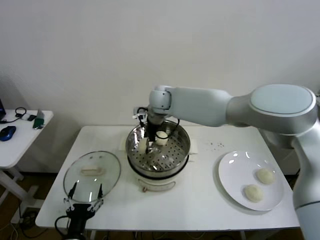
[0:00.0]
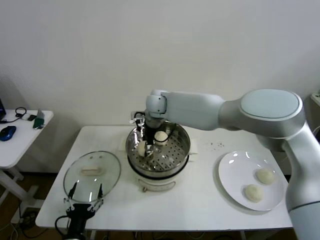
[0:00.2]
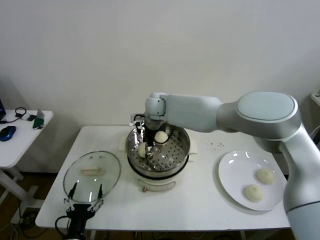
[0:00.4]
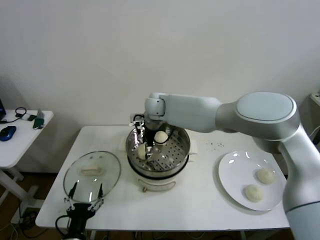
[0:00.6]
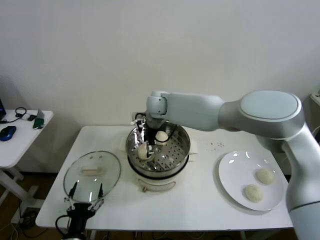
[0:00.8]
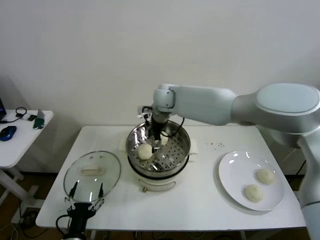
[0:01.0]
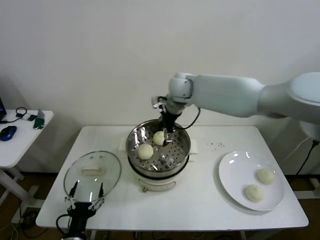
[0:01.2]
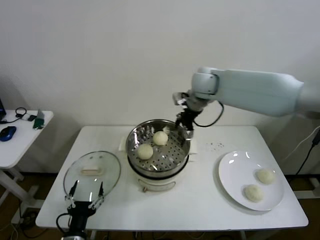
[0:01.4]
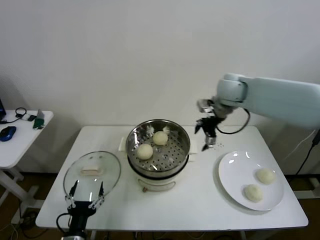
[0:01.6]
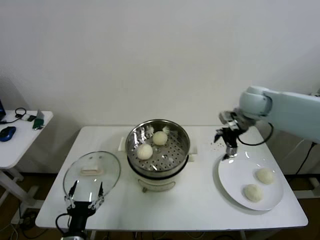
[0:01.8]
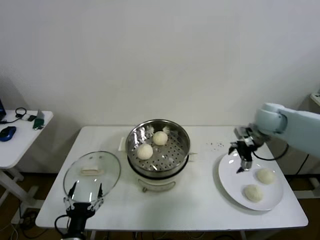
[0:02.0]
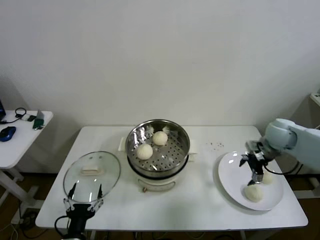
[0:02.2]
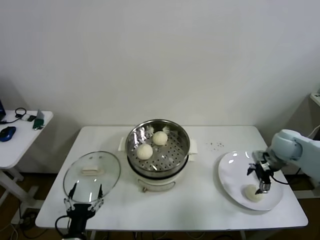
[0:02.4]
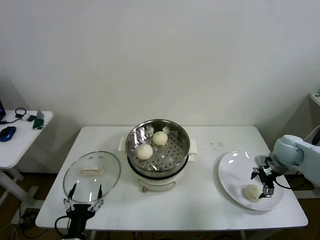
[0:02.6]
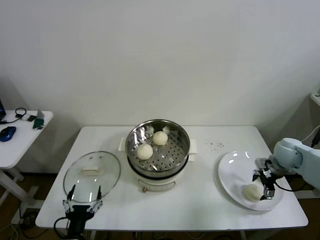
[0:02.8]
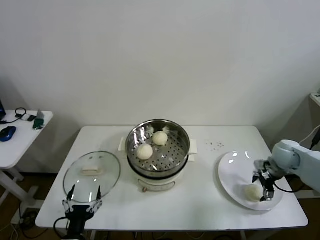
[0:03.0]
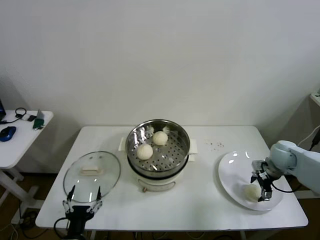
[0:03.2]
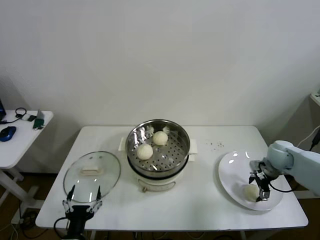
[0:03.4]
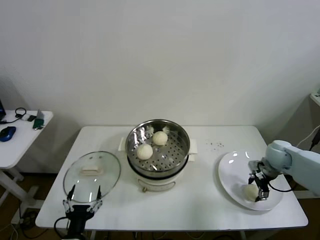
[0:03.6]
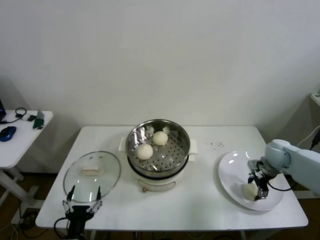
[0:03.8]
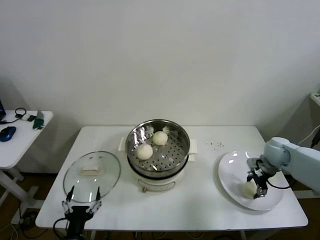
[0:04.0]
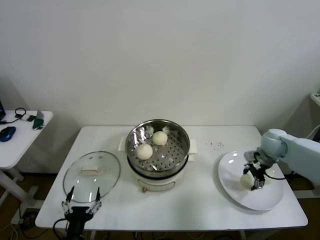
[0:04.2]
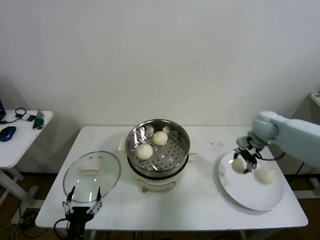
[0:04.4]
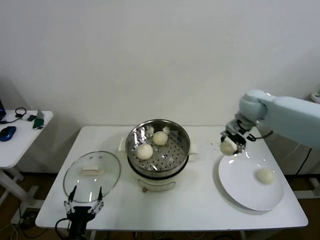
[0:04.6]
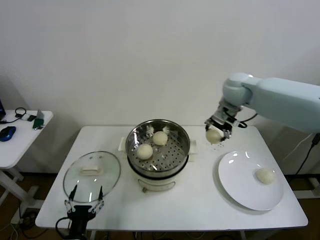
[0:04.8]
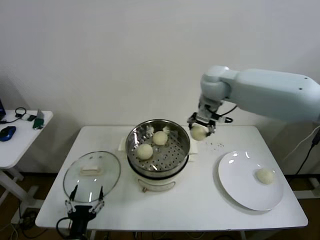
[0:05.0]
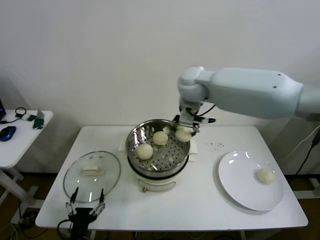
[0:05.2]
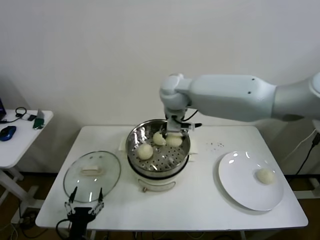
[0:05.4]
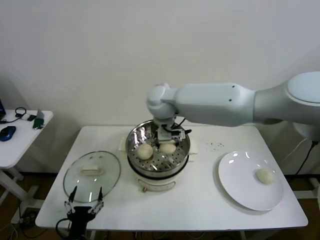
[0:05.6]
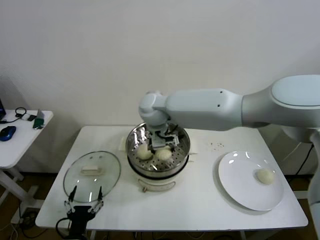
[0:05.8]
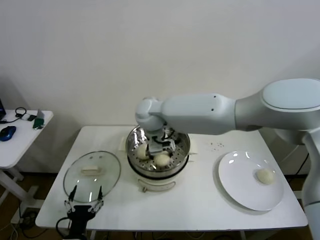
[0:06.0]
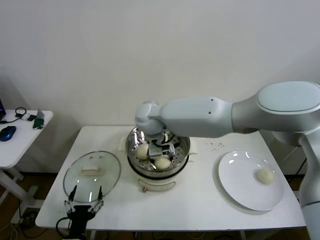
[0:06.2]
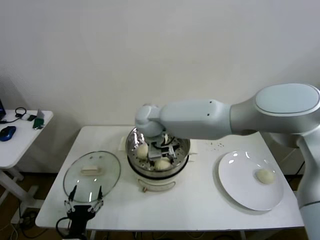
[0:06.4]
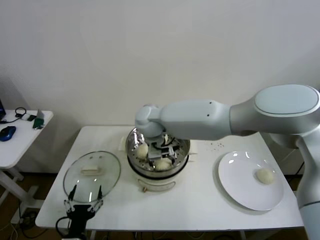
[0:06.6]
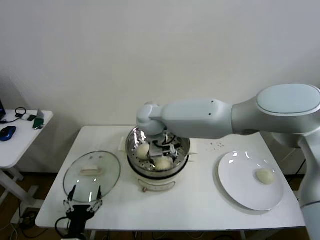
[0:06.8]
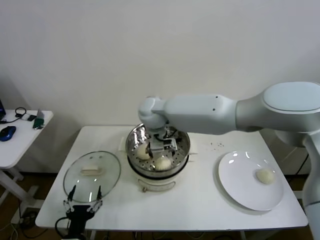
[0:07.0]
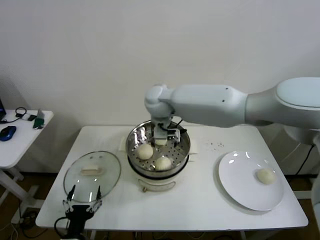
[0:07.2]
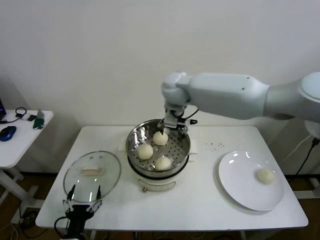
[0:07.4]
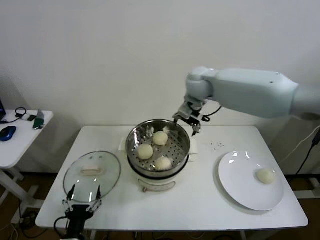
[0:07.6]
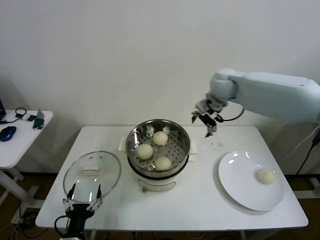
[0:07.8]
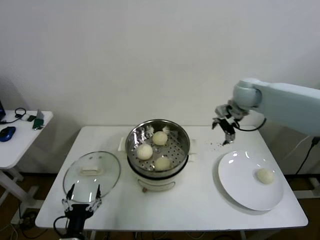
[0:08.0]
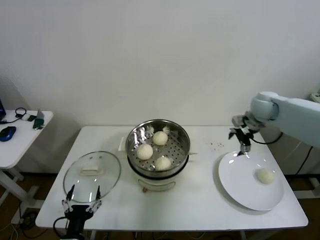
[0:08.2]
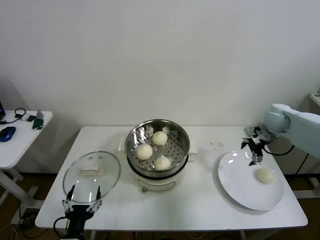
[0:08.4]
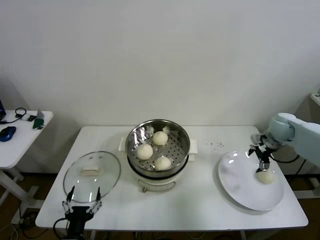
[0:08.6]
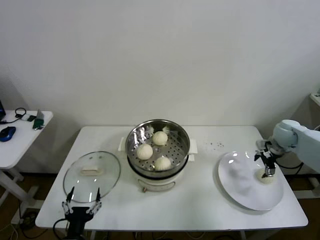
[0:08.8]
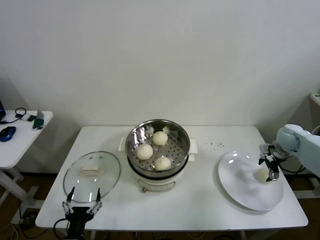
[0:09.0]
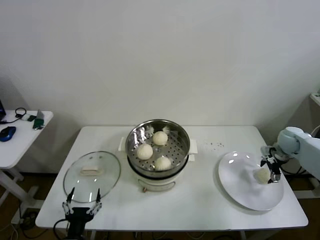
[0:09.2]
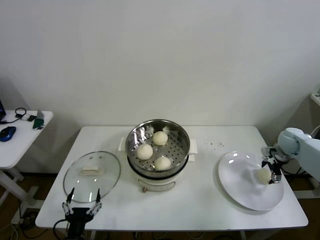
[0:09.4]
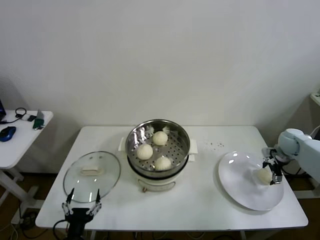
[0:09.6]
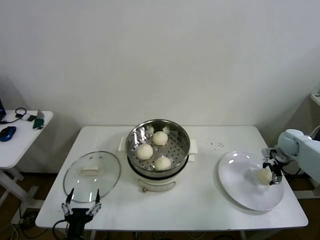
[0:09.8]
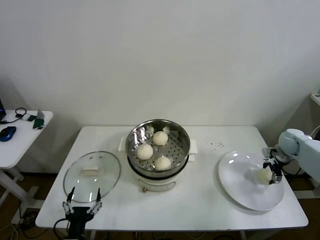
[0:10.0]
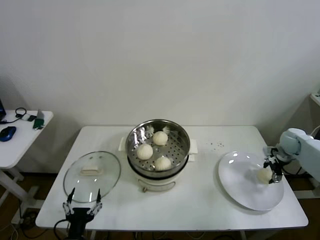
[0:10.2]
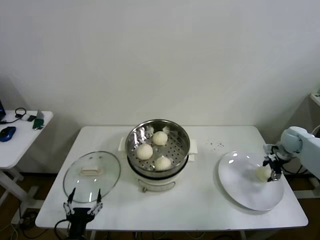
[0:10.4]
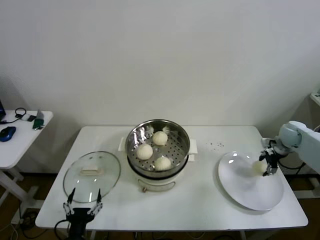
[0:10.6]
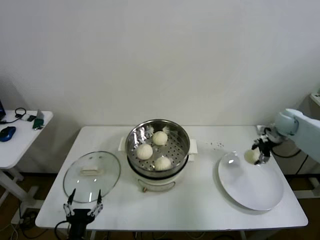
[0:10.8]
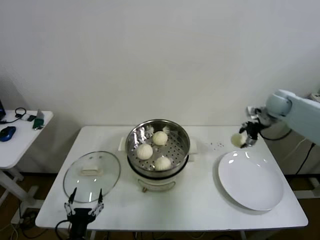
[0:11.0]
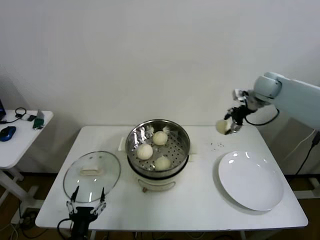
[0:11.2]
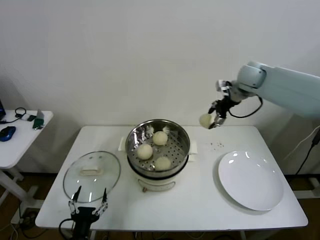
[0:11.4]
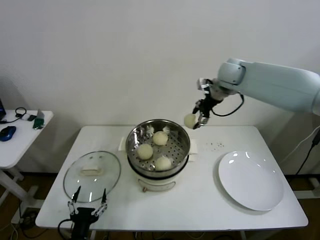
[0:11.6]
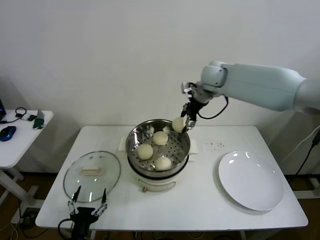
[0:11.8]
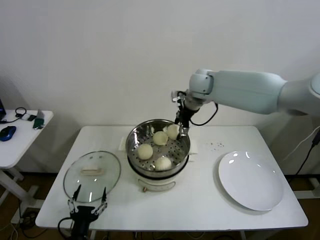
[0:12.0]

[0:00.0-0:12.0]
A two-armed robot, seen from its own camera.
Step, 0:00.6 to 0:03.6: Grasp the baozi in the plate with right gripper.
Step, 0:03.8 to 0:06.4: Place the baozi on the steamer with right gripper.
Step, 0:06.6 to 0:10.0: Grasp the baozi in the plate with right gripper.
0:00.0 to 0:01.6: The right gripper travels to the right by some 25 cm, and opens up.
0:01.6 to 0:03.0: The right gripper shifts approximately 30 cm downward, to the right and backward.
0:03.0 to 0:04.4: The right gripper is displaced upward, to the left and forward by about 15 cm, and closes.
0:04.4 to 0:06.0: The right gripper heads to the left, covering roughly 40 cm.
0:06.0 to 0:07.6: The right gripper travels to the right, forward and upward by some 20 cm, and opens.
0:07.6 to 0:09.0: The right gripper goes some 40 cm to the right and downward.
0:09.0 to 0:10.4: The right gripper closes up.
0:10.4 to 0:12.0: The right gripper travels to the left and upward by roughly 40 cm.

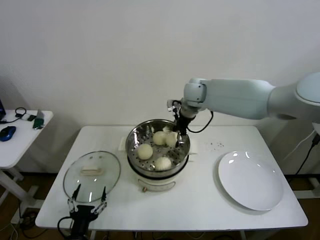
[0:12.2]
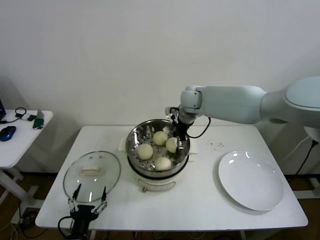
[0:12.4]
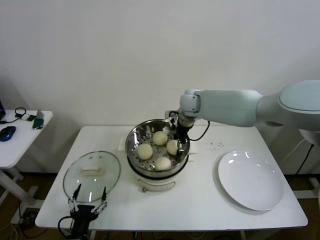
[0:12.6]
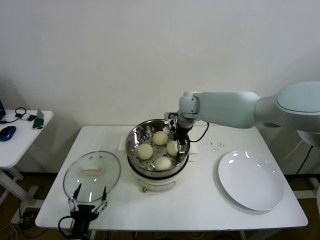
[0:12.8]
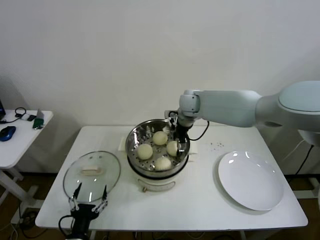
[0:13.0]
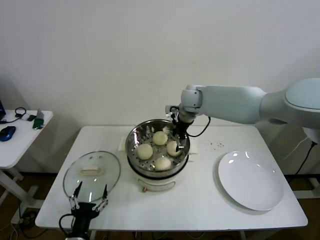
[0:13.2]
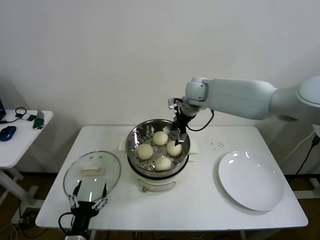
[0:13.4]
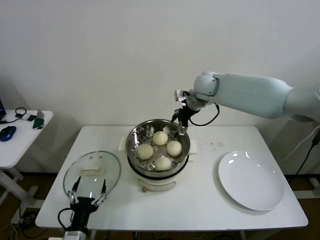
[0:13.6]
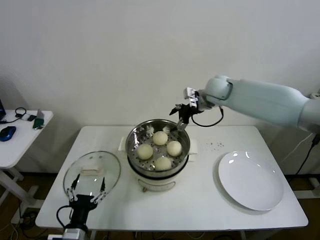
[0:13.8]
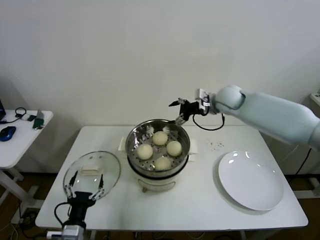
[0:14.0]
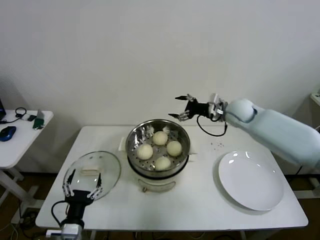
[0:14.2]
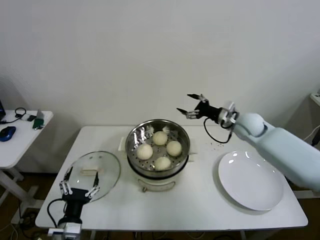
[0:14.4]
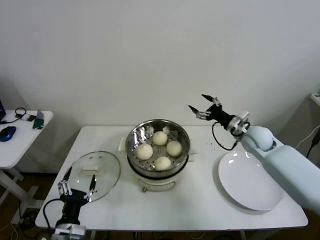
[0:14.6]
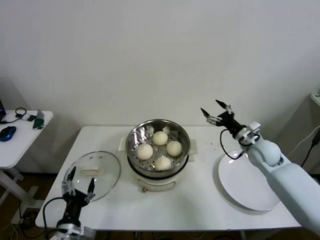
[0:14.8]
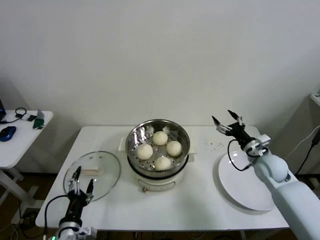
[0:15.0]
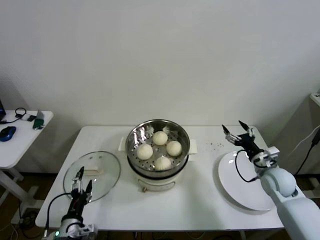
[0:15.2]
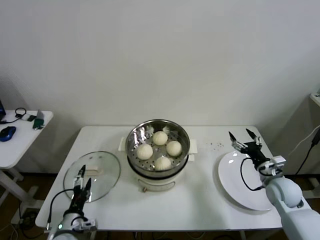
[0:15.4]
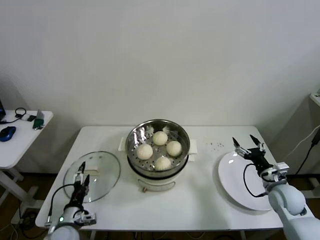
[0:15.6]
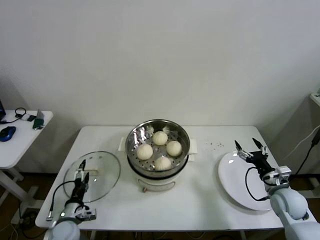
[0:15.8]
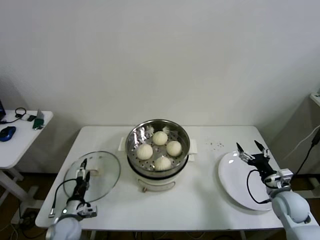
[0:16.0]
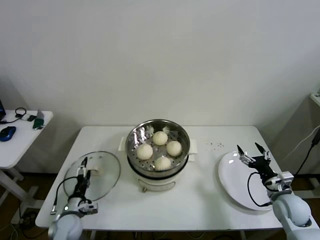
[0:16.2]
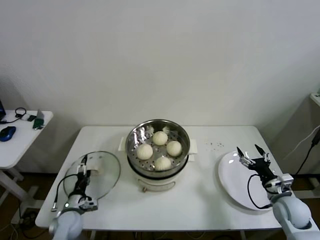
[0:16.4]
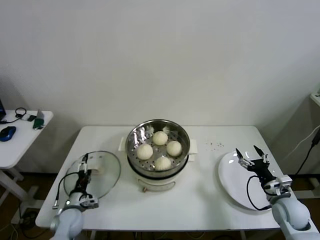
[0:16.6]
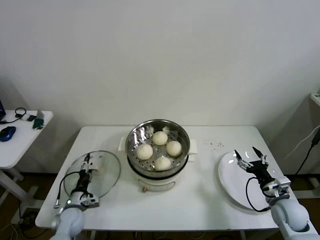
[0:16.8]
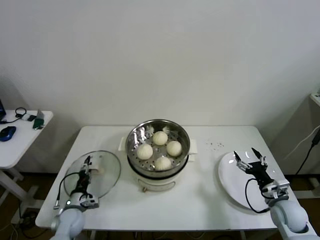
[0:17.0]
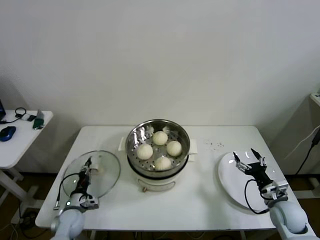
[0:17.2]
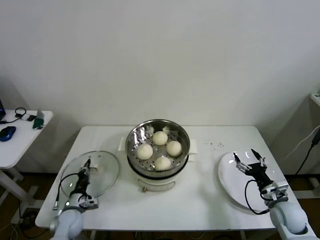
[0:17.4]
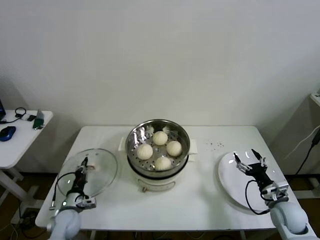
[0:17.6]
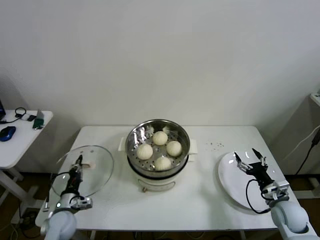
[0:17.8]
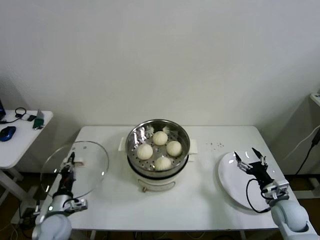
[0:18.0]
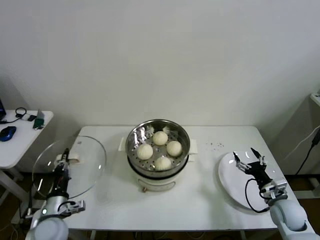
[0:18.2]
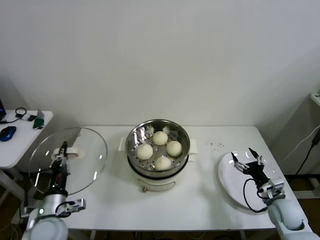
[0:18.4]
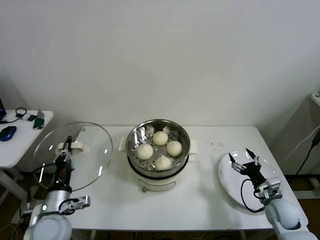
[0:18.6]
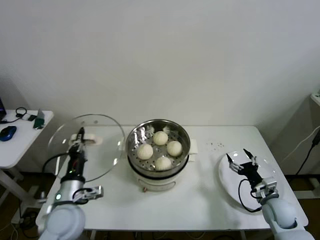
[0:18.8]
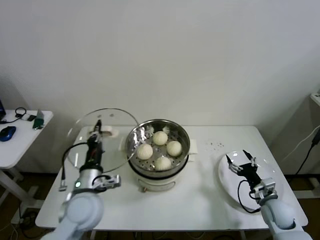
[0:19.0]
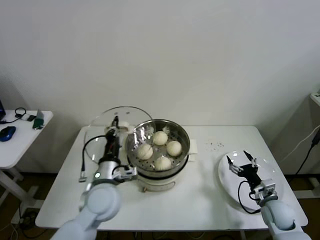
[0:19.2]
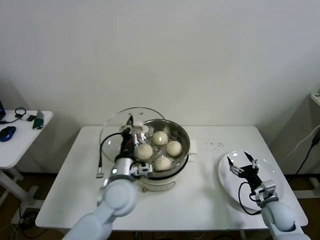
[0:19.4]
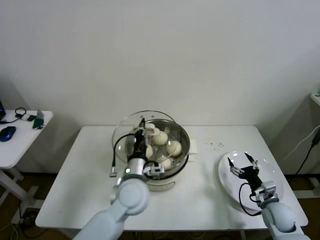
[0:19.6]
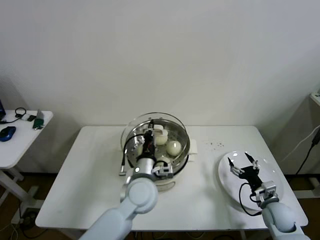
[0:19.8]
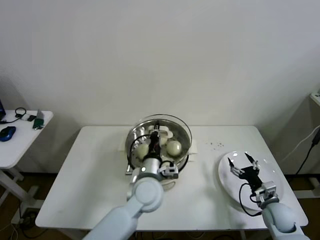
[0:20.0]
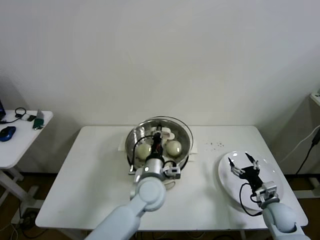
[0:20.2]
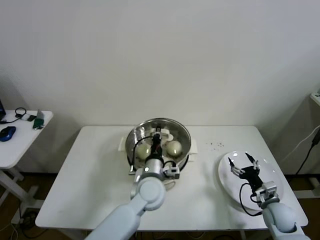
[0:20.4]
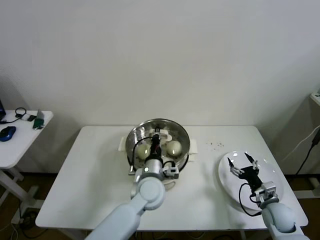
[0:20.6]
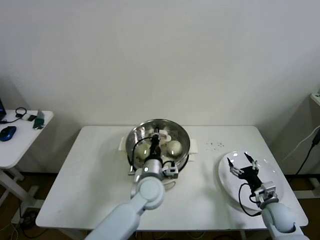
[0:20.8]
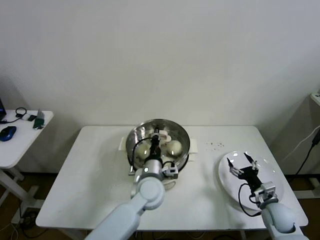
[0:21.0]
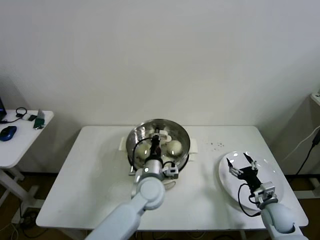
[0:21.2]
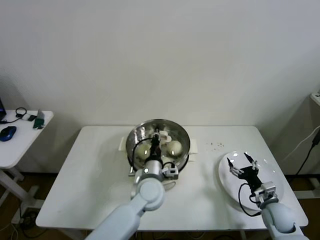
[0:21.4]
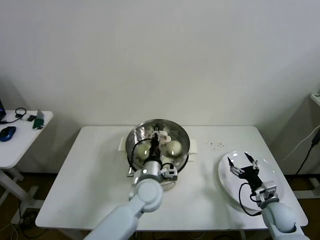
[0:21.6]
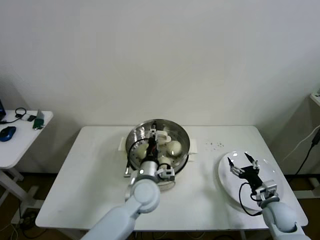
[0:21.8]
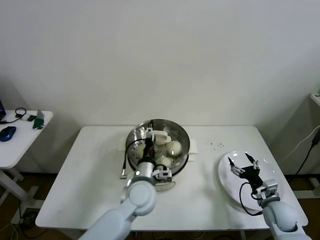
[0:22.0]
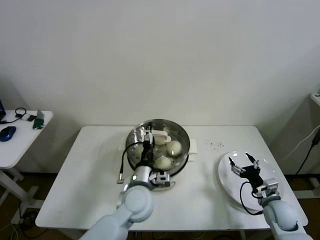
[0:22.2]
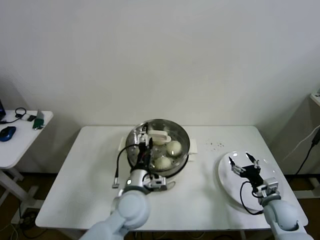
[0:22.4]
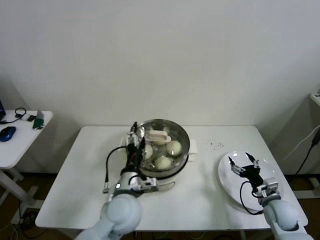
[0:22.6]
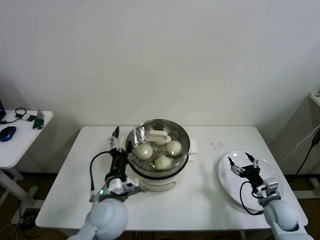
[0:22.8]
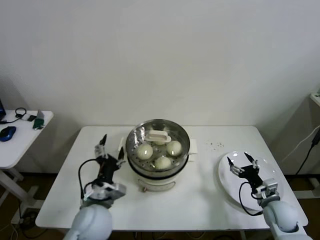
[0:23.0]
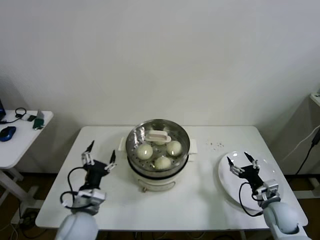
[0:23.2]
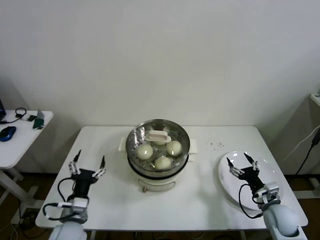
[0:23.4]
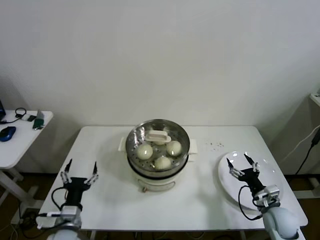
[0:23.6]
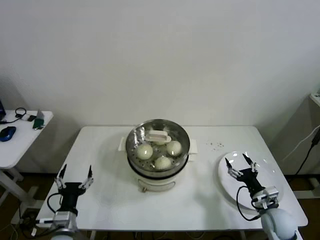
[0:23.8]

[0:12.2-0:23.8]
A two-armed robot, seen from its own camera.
Step, 0:13.0 to 0:17.2: Grasp the pot lid with left gripper.
Step, 0:17.4 to 0:20.8: Place the pot lid on the steamer with left gripper.
0:12.2 to 0:13.6: The right gripper opens.
0:13.6 to 0:15.0: The right gripper heads downward, to the right and backward, covering some 35 cm.
0:15.0 to 0:16.6: The left gripper is displaced forward, downward and to the left by approximately 20 cm; the right gripper is displaced backward and downward by approximately 15 cm.
0:16.6 to 0:18.0: The left gripper shifts about 5 cm upward, and closes up.
0:18.0 to 0:19.4: The left gripper is displaced to the right and upward by approximately 25 cm.
0:19.4 to 0:21.0: The left gripper travels to the right and downward by approximately 10 cm.
0:21.0 to 0:22.4: The left gripper shifts by roughly 5 cm, and opens its fingers.
0:22.4 to 0:23.8: The left gripper travels to the left, backward and downward by about 25 cm.
